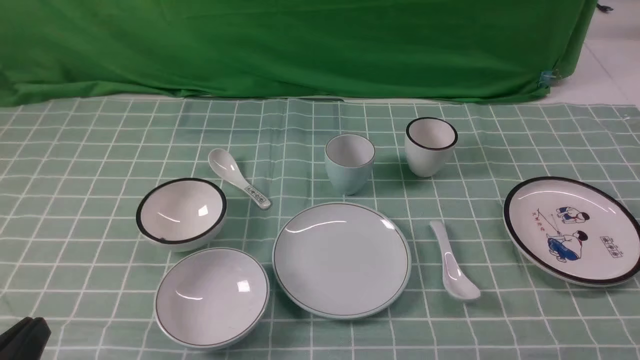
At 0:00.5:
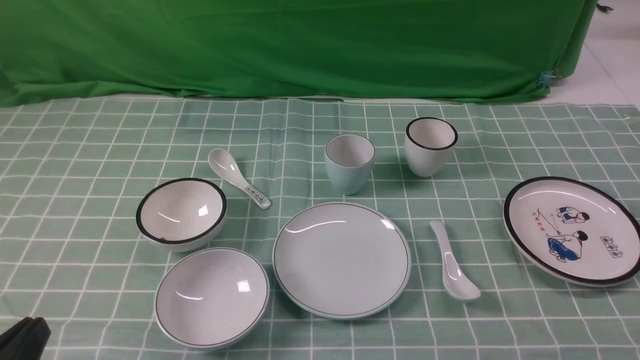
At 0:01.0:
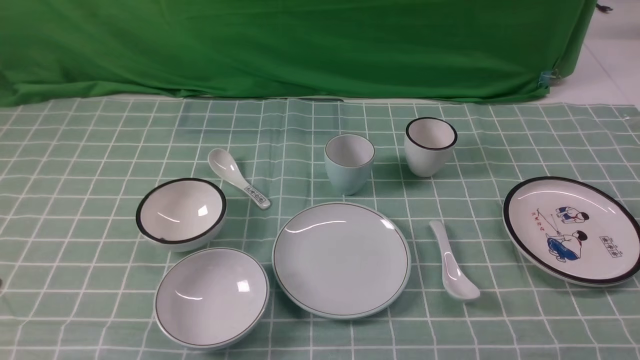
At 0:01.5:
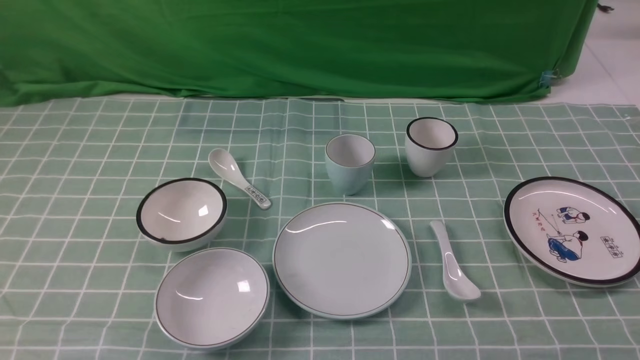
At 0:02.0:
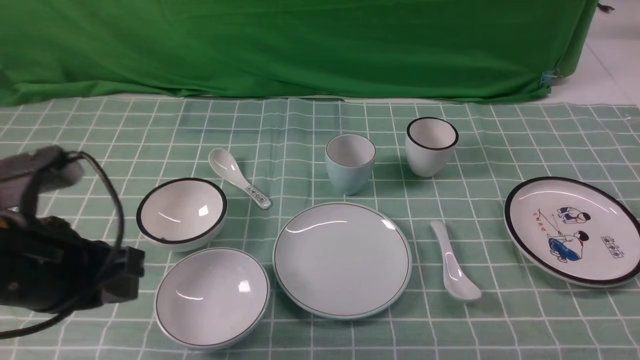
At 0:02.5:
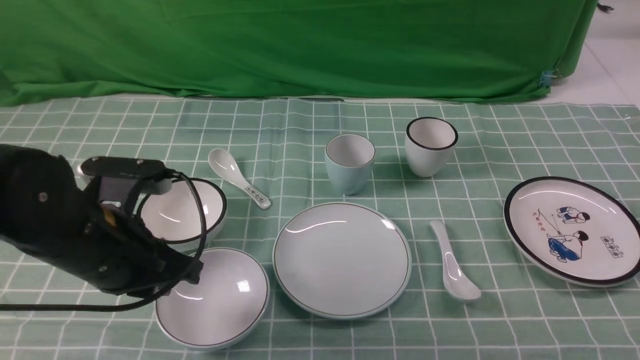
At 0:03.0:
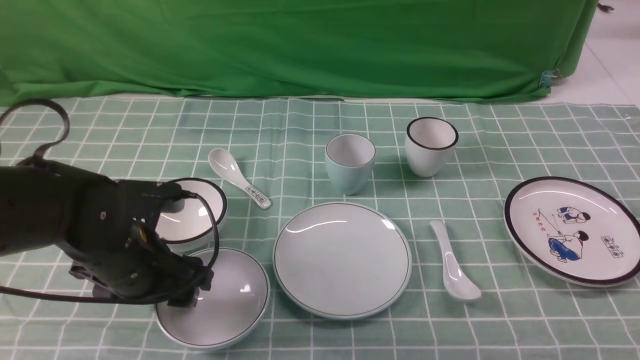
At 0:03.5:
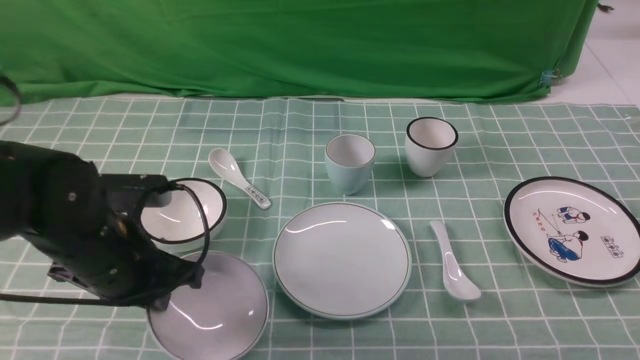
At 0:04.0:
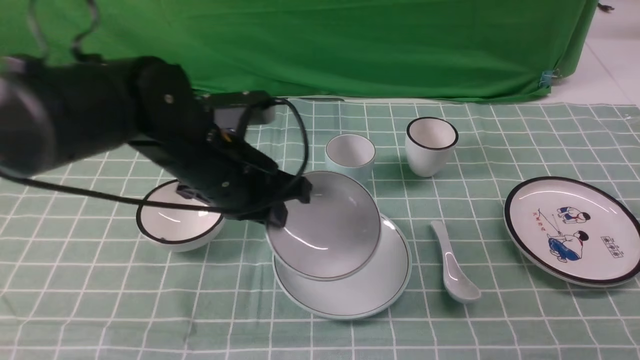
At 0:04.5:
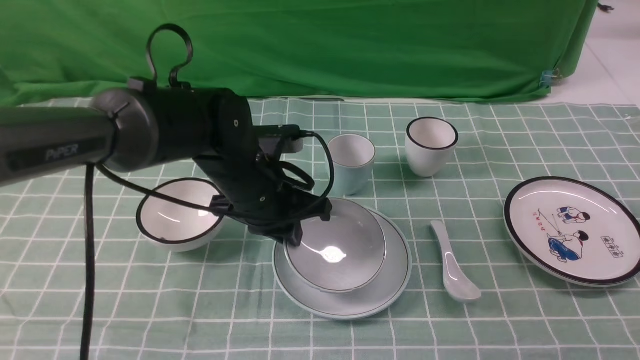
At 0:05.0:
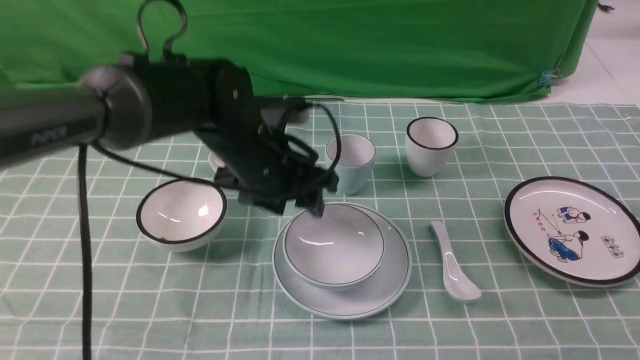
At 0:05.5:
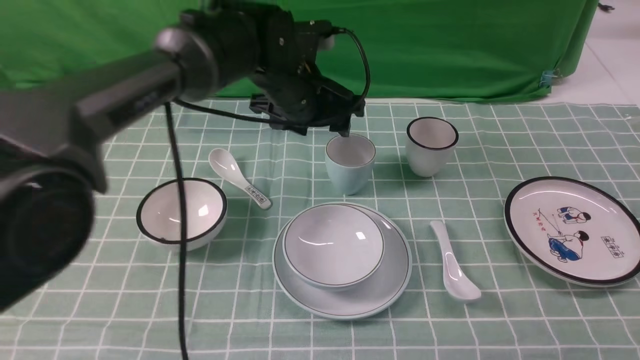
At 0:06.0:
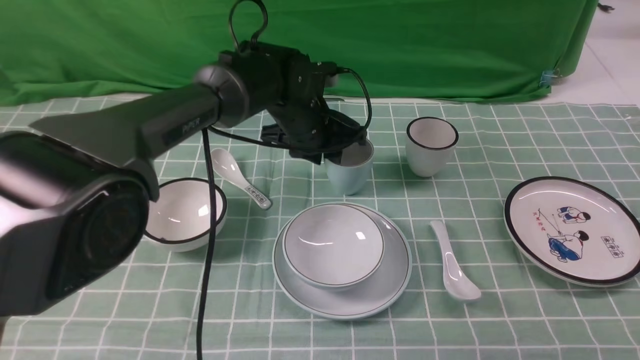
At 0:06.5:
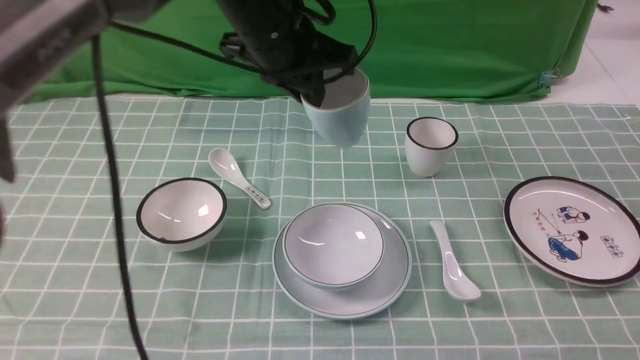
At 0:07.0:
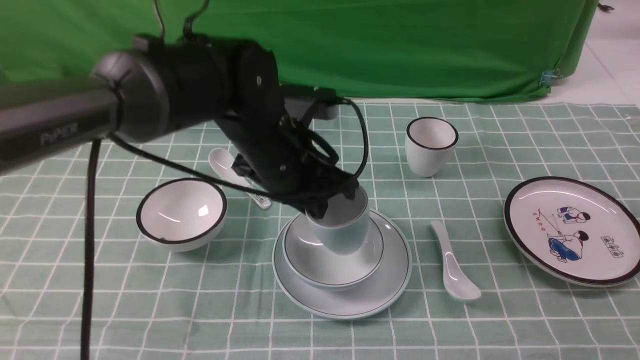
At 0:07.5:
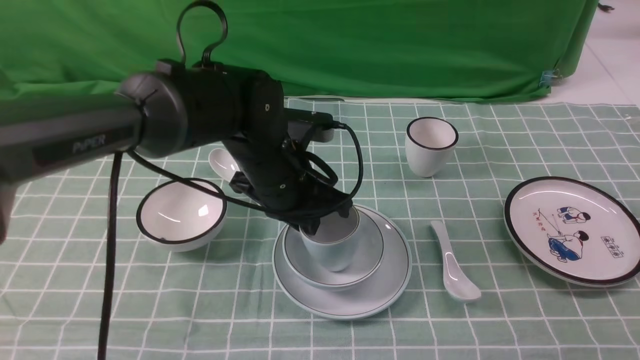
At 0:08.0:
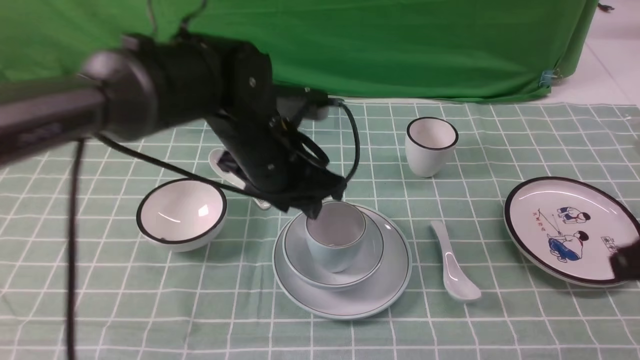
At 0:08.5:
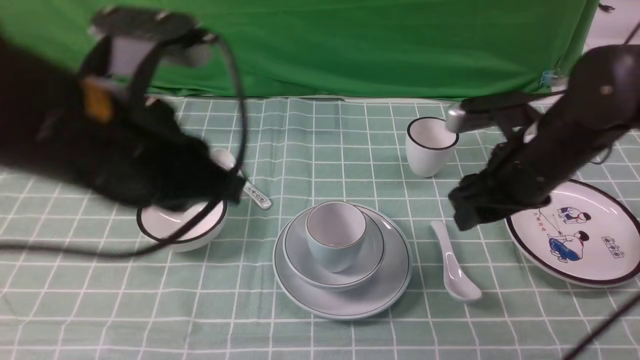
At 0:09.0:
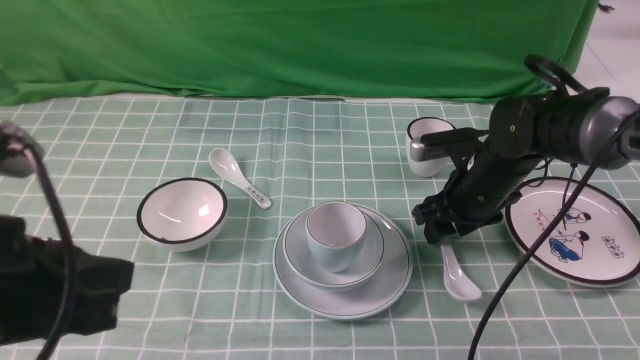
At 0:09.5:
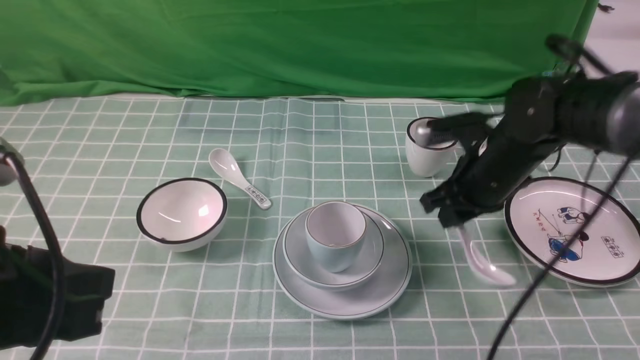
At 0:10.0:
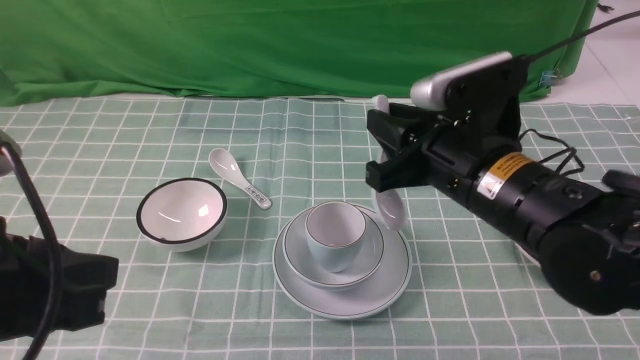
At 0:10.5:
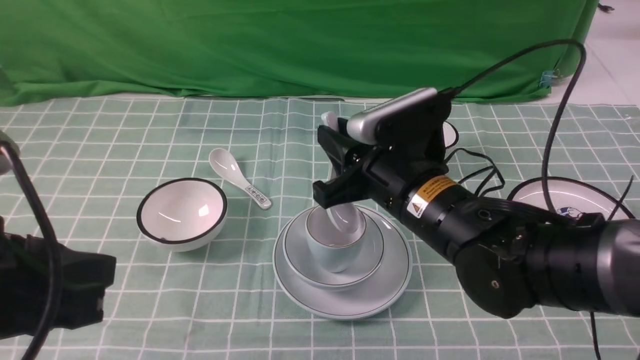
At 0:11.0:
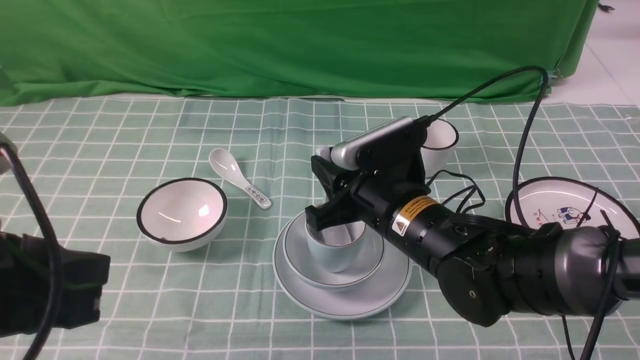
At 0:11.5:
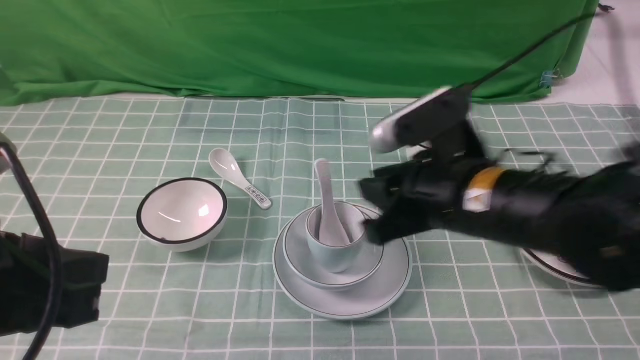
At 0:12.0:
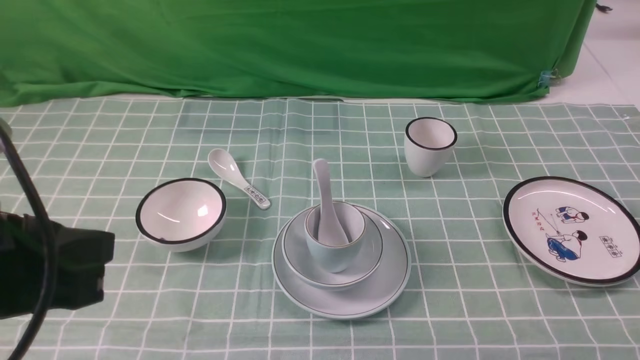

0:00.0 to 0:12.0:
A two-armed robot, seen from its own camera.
Task of the whole recording: place the bowls on the plates on the blue tablecloth, put the cups on the bowls, and place the spoons in the cups.
Step, 0:00.0 to 0:03.0: Grasp the bowl with the left gripper.
Step, 0:03.5 to 0:04.5: Place the bowl on the plate with the left gripper.
Step, 0:05.0 to 0:06.0: Grasp the cup with the left gripper.
Step, 0:06.5 to 0:07.5: Place the cup on the bowl with the left gripper.
Step, 0:08.0 to 0:09.0: Grasp the spoon with the right gripper.
Step, 0:09.5 to 0:11.0: Place the spoon on the cup with the right gripper.
0:00.0 to 0:02.0: The left gripper moves forward and upward, about 15 cm; the right gripper moves upward, some 10 cm.
0:02.0 to 0:04.0: The left gripper is displaced forward and to the right by about 15 cm, and opens, then closes once more. The right gripper shifts some 10 cm forward and upward.
0:04.0 to 0:06.0: The left gripper travels forward and to the right by approximately 15 cm, and opens up.
0:06.0 to 0:08.0: The right gripper goes about 5 cm forward. The left gripper goes some 15 cm backward and upward, and closes and opens again.
0:08.0 to 0:10.0: The left gripper travels backward and to the left by some 25 cm, and closes its fingers. Meanwhile the right gripper heads to the left, covering approximately 15 cm, reaches roughly 20 cm forward, then returns, and opens, then closes again.
0:10.0 to 0:12.0: The right gripper shifts some 25 cm backward and to the right, and closes its fingers.

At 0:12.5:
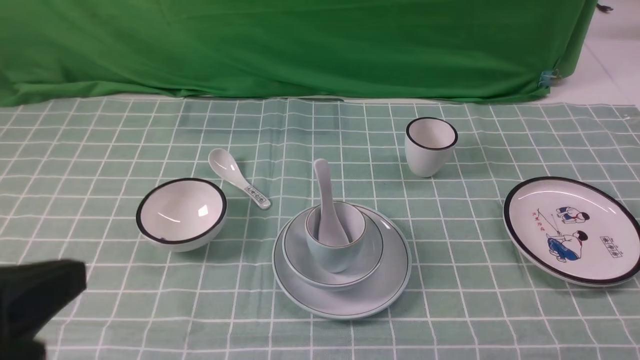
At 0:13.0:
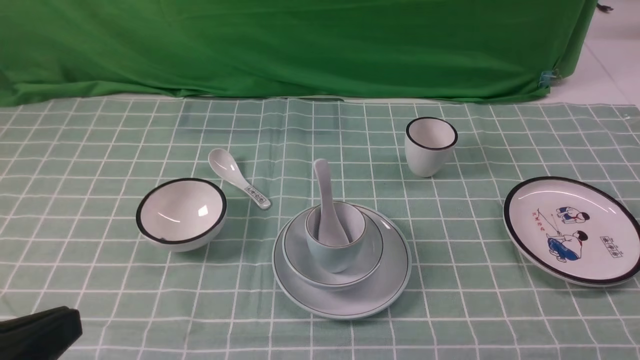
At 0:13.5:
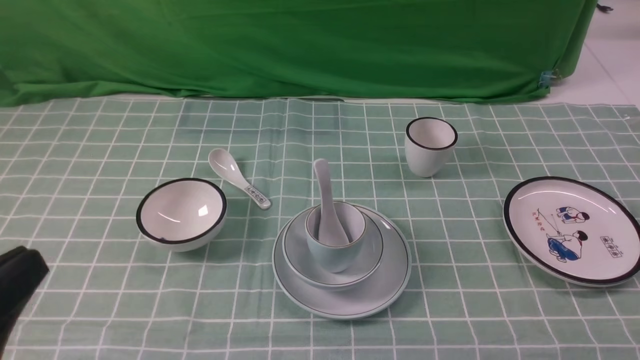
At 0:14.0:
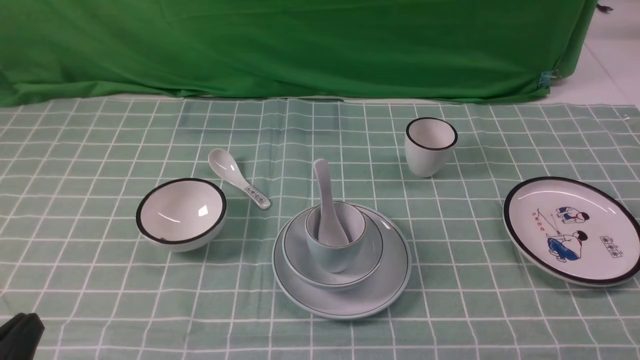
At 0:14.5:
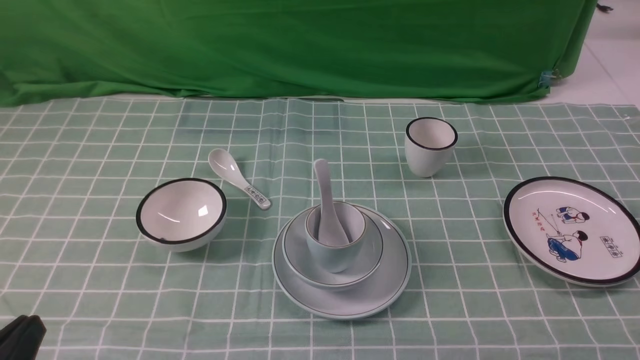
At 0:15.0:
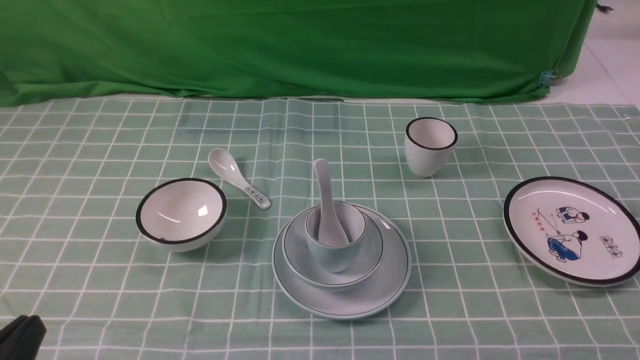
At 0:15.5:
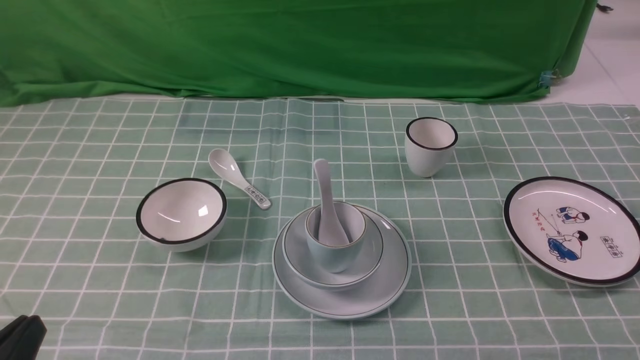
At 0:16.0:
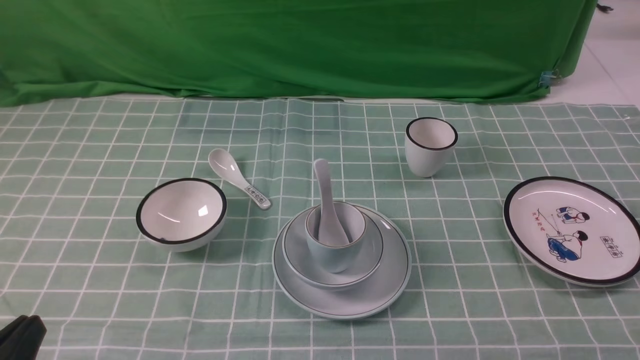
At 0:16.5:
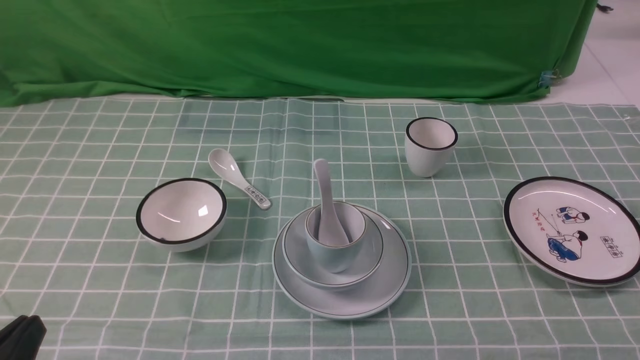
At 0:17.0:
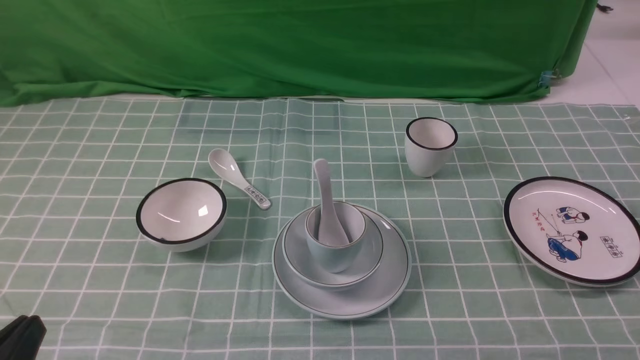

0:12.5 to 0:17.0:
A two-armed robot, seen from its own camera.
Task of the whole recording: place the bowls on the plates on the blue tablecloth, put the cups on the bowls, and place the spoons in the cups.
0:12.5 to 0:14.5: The left gripper moves downward, approximately 15 cm.
